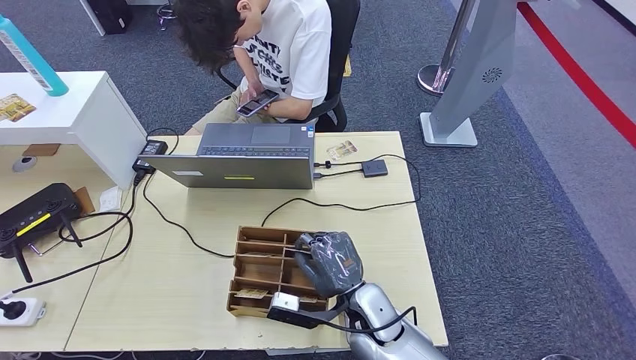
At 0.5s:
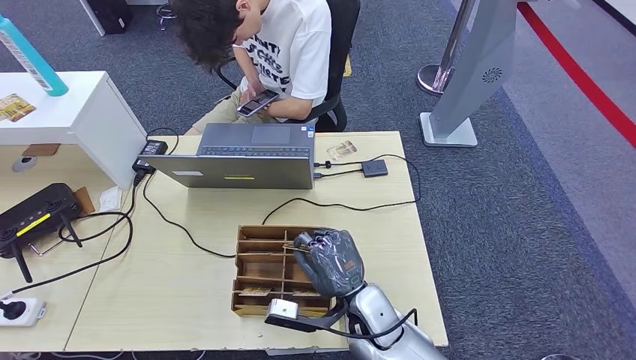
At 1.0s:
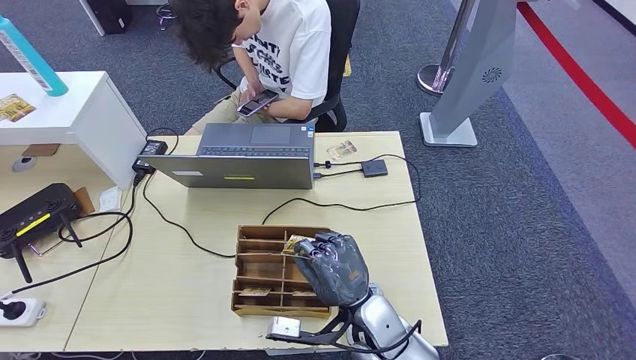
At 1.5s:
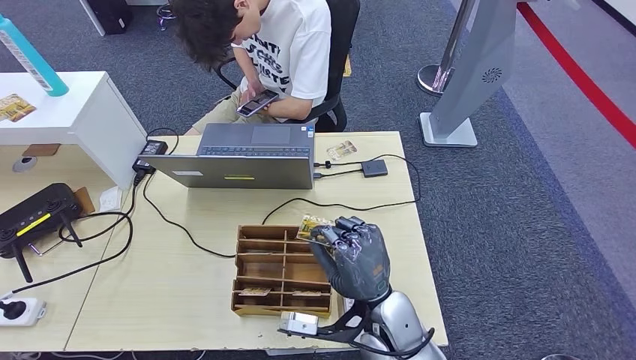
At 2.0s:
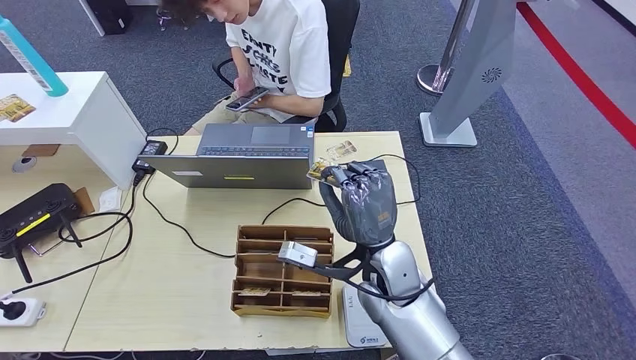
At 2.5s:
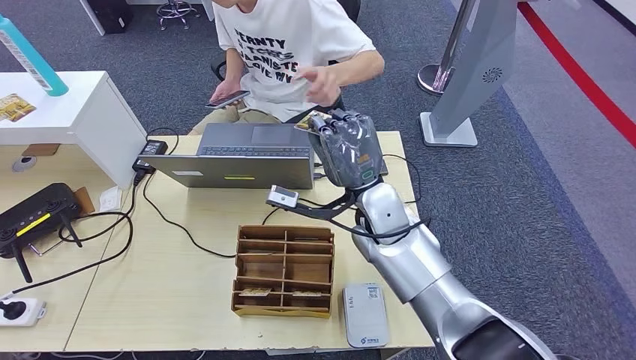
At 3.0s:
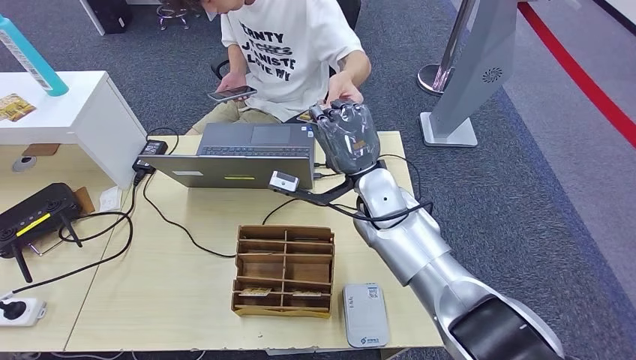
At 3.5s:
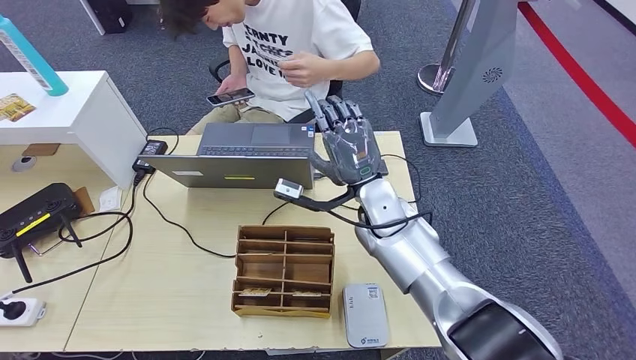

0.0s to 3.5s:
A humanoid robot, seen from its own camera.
Step, 0.0s to 2.0s: Pick up the room key from the key card box.
Step, 2.5s to 3.5s: Hand the room key to the person.
0.0s to 2.0s: The right hand goes some 10 cm upward.
2.0s to 3.5s: The right hand travels forward by some 10 cm.
